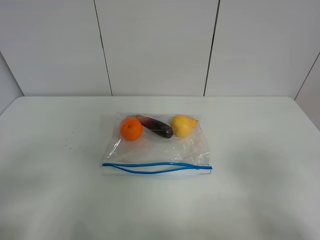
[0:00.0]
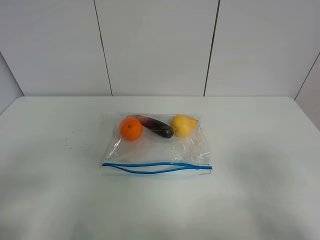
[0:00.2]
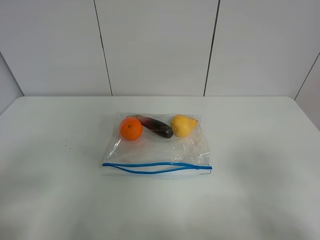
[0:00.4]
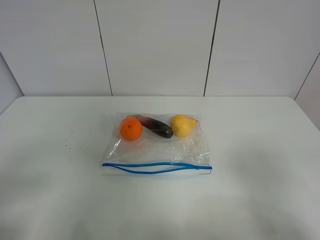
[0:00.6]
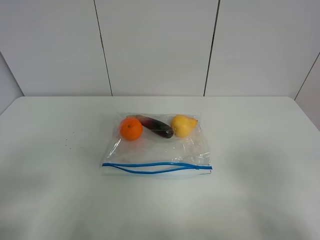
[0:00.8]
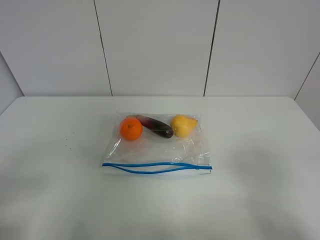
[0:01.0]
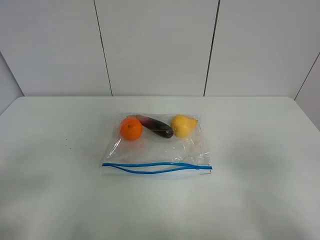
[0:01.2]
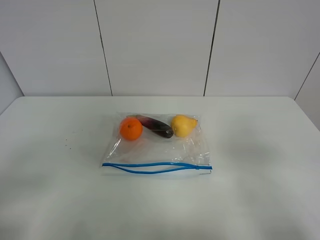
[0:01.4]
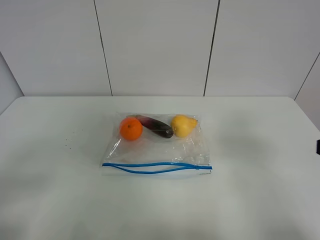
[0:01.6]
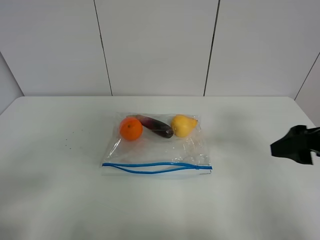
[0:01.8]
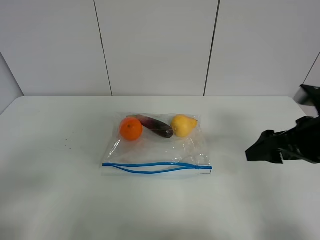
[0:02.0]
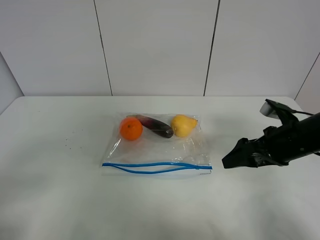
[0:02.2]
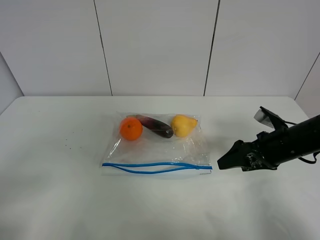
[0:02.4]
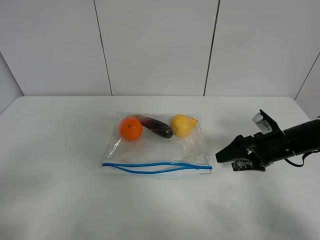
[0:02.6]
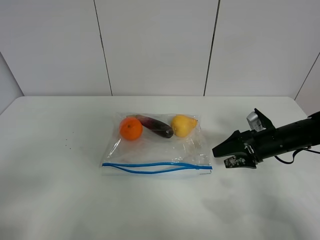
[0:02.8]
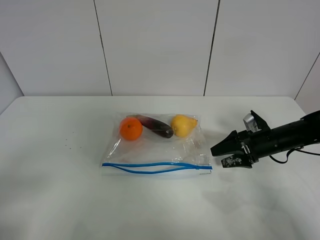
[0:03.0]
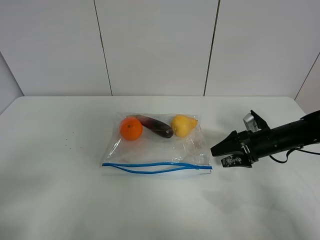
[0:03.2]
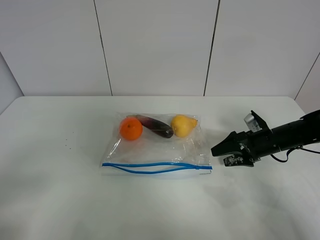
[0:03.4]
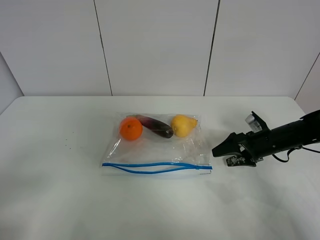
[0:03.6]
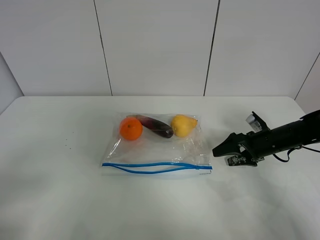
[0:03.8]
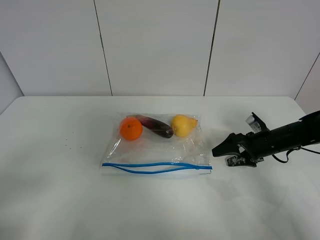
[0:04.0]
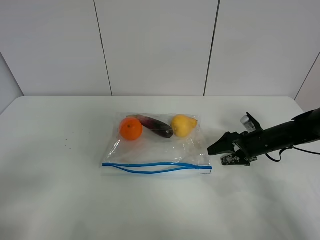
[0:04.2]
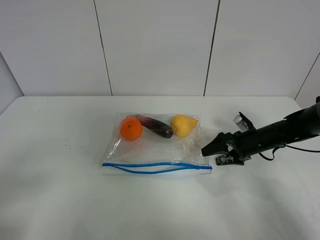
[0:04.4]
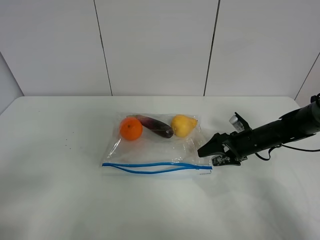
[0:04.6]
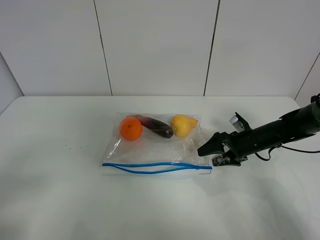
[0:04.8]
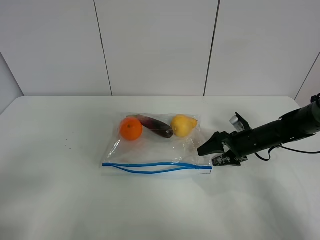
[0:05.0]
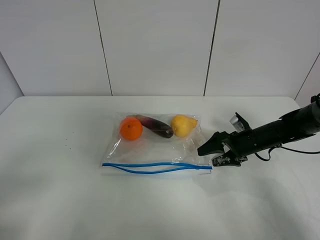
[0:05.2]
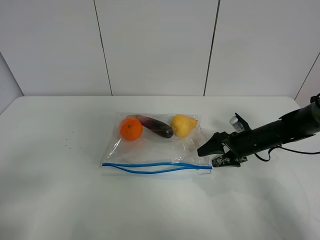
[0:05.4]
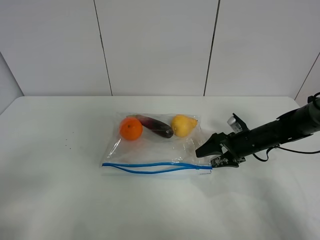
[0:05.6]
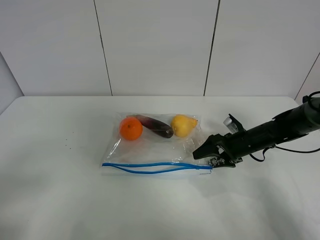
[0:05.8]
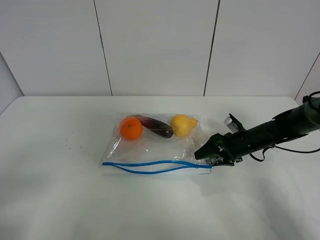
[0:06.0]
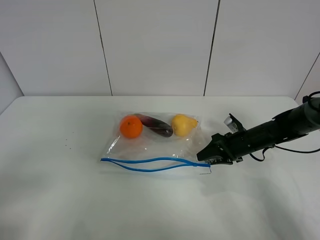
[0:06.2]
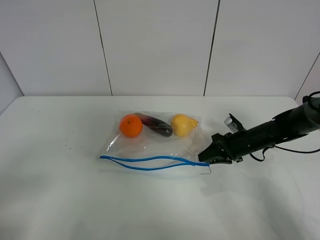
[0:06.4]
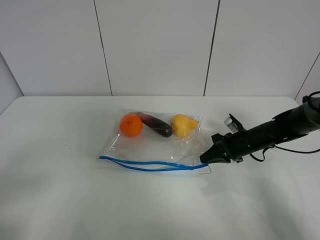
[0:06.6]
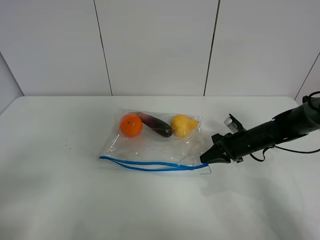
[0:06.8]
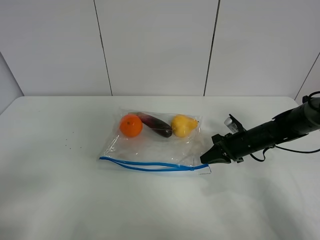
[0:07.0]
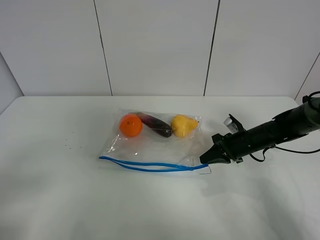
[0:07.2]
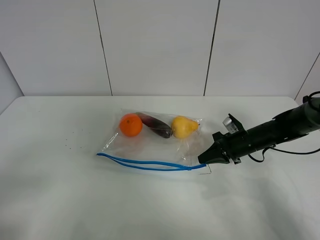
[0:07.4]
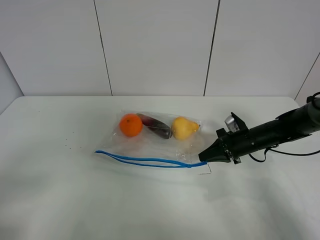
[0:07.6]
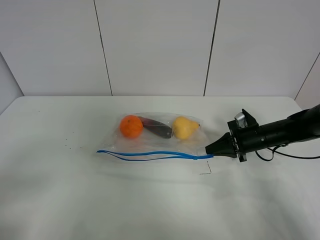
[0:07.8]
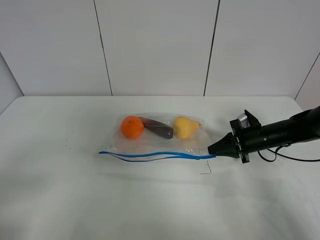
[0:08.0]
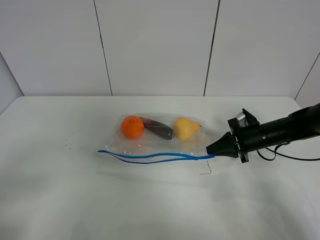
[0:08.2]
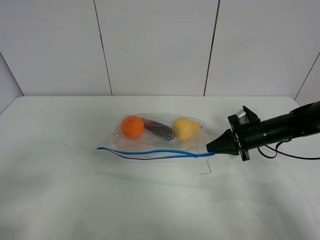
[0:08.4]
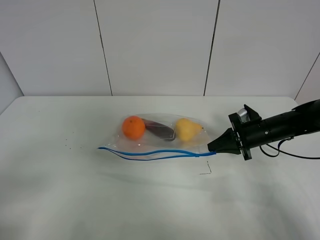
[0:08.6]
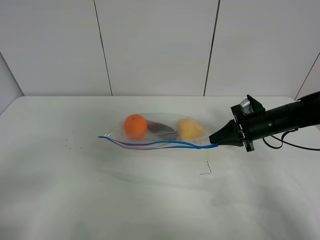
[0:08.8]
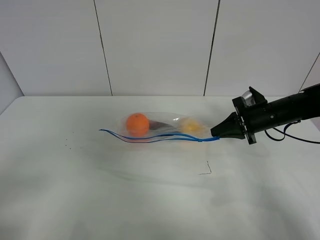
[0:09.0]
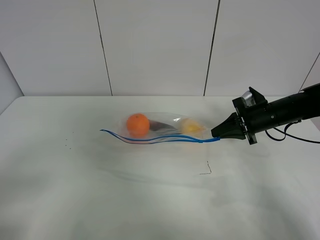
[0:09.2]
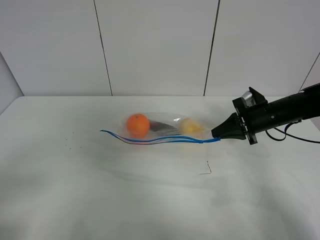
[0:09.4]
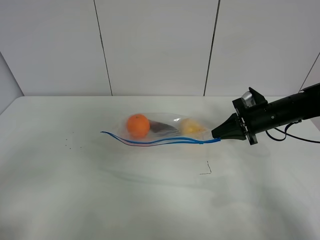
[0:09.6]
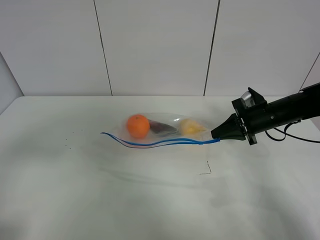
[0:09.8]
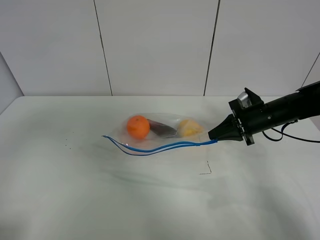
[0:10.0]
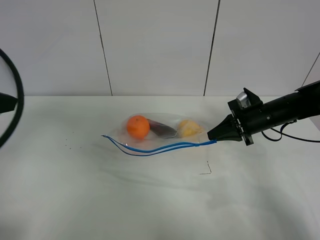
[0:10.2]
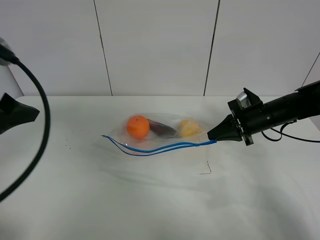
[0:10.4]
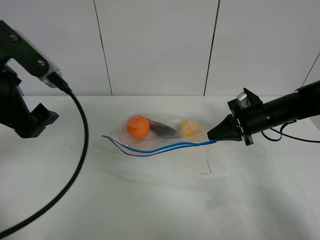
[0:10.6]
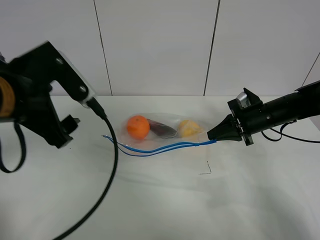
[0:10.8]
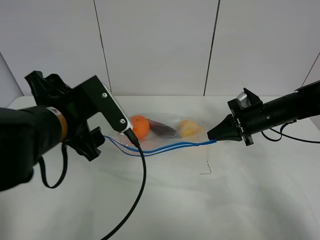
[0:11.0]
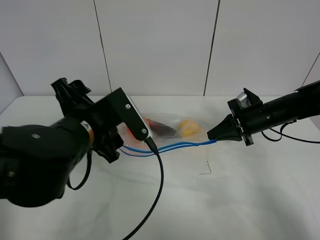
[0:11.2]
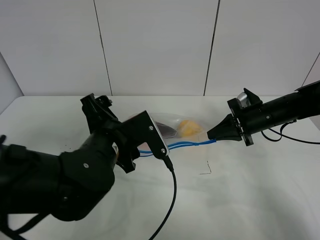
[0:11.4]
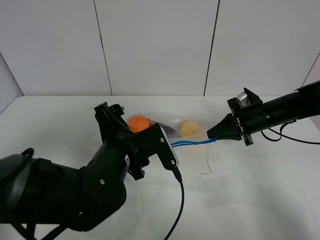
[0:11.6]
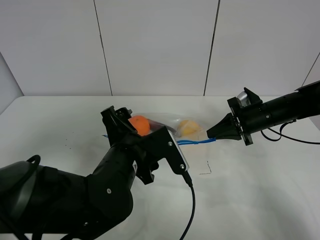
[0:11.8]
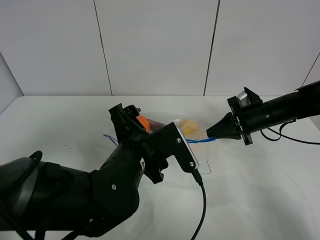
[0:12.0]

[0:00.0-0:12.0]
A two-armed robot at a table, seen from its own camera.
Step, 0:00.0 to 0:06.6: Grasp the fruit bag with right gripper.
Step, 0:06.8 to 0:09.4: Lift the fruit bag with your right gripper.
0:00.0 to 0:01.6: The right gripper heads forward, covering some 10 cm.
0:01.6 to 0:03.0: The right gripper travels forward and downward by roughly 30 cm.
0:03.0 to 0:06.0: The grippers move only a little.
0:06.0 to 0:07.6: The right gripper closes.
0:07.6 to 0:09.0: The right gripper heads upward, covering about 5 cm.
0:09.0 to 0:10.4: The left gripper travels forward and upward by approximately 20 cm.
0:10.4 to 0:12.0: The left gripper is displaced to the right and downward by about 30 cm.

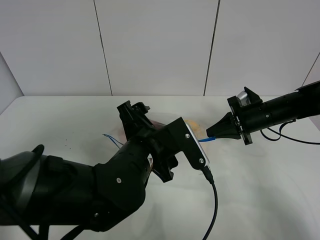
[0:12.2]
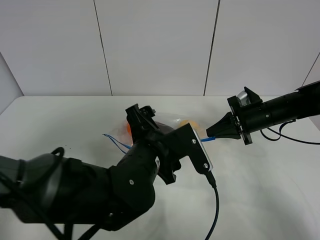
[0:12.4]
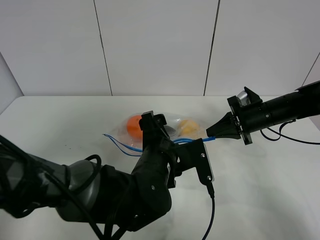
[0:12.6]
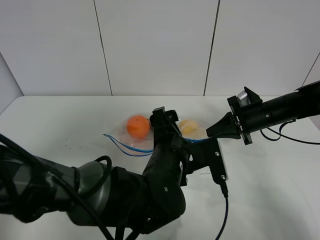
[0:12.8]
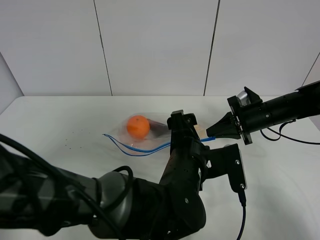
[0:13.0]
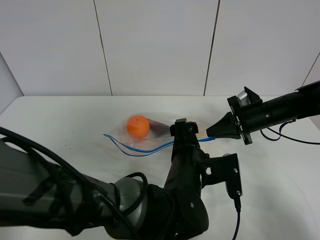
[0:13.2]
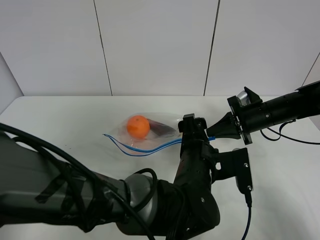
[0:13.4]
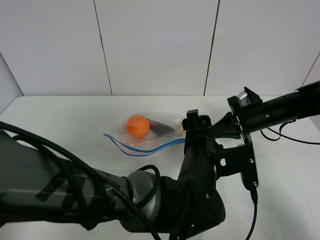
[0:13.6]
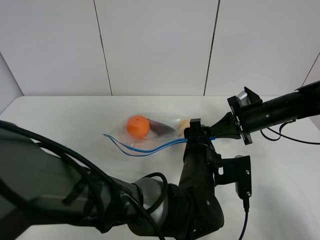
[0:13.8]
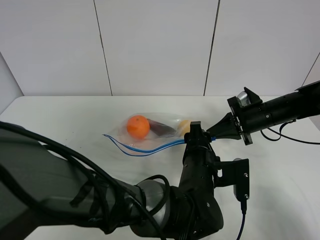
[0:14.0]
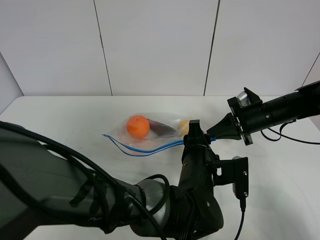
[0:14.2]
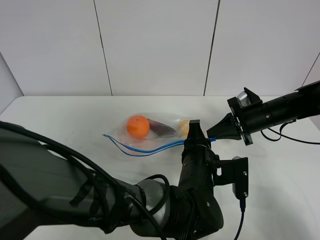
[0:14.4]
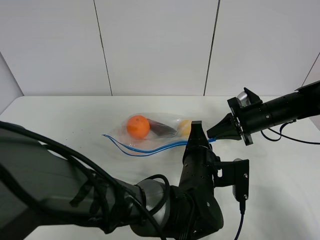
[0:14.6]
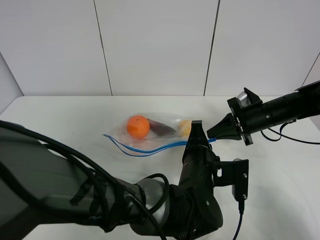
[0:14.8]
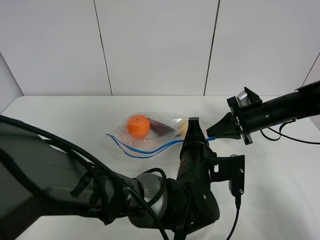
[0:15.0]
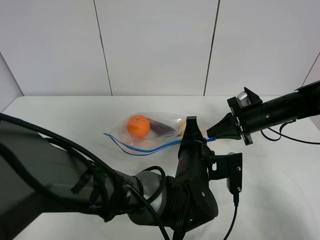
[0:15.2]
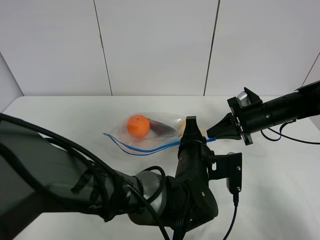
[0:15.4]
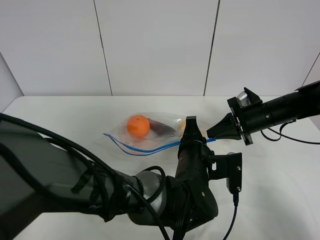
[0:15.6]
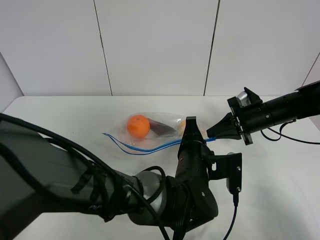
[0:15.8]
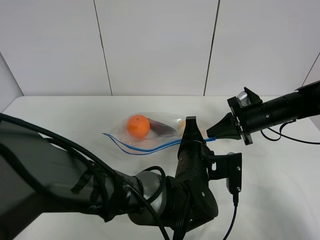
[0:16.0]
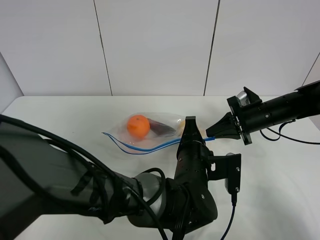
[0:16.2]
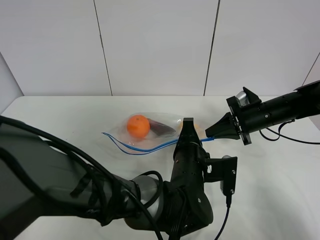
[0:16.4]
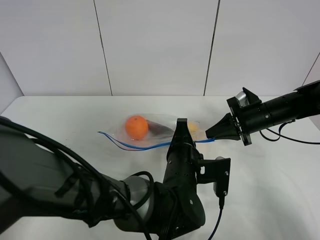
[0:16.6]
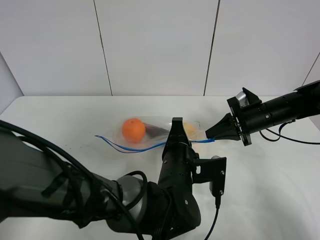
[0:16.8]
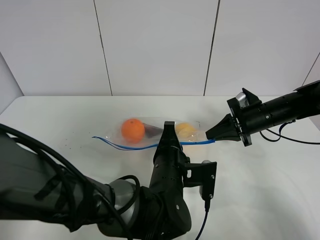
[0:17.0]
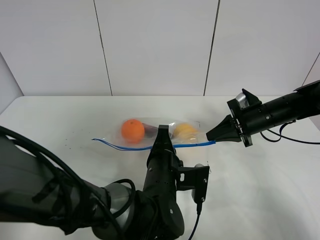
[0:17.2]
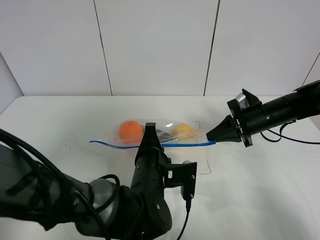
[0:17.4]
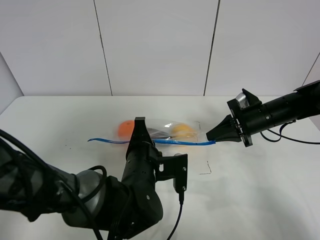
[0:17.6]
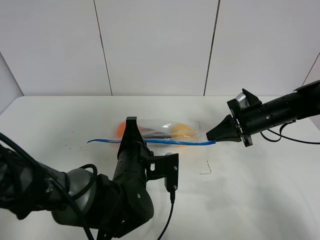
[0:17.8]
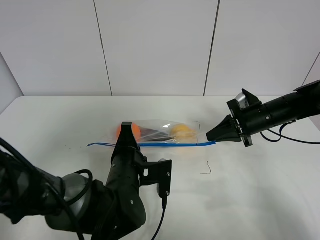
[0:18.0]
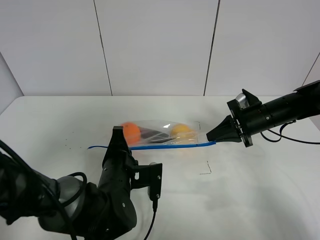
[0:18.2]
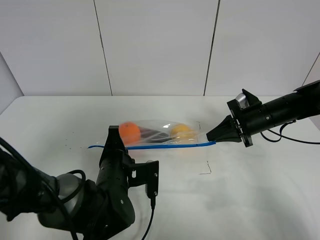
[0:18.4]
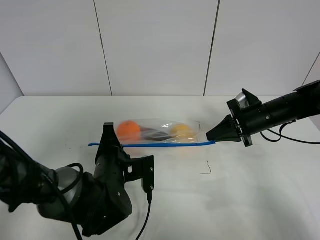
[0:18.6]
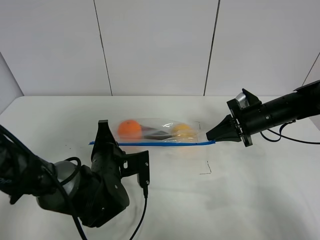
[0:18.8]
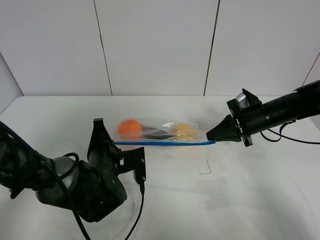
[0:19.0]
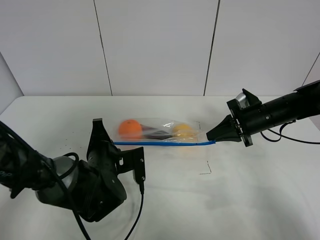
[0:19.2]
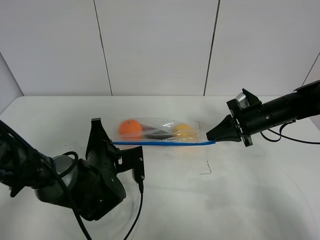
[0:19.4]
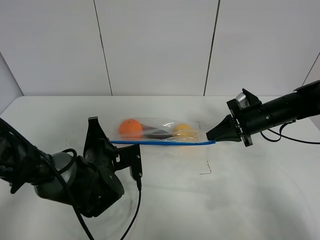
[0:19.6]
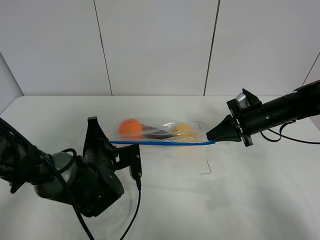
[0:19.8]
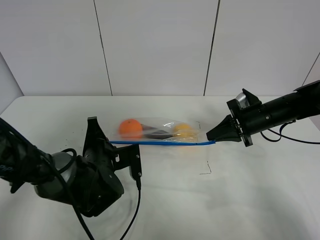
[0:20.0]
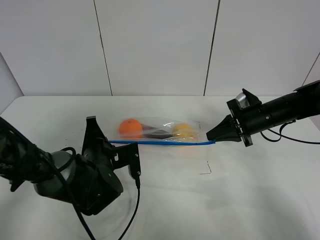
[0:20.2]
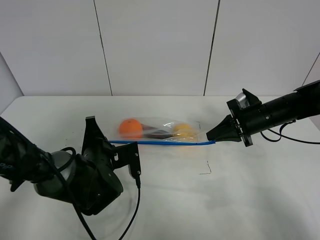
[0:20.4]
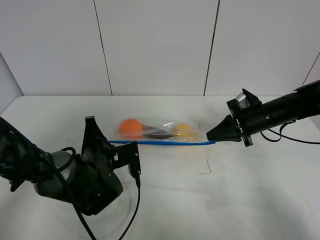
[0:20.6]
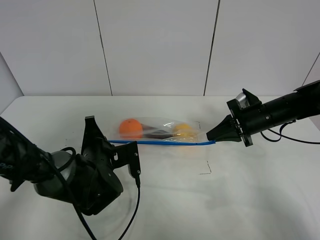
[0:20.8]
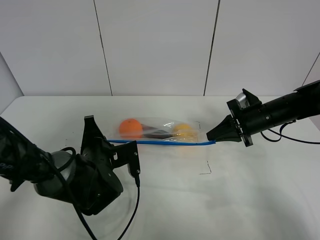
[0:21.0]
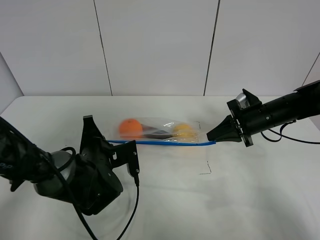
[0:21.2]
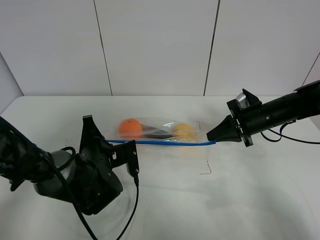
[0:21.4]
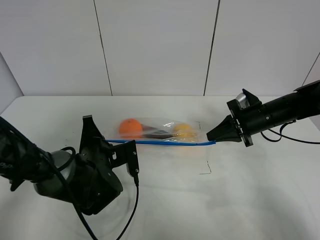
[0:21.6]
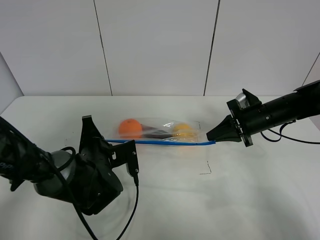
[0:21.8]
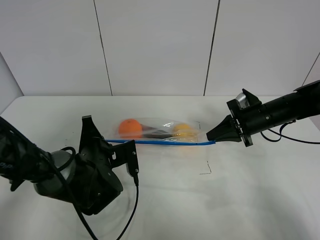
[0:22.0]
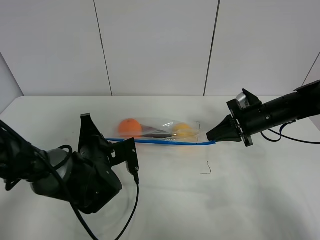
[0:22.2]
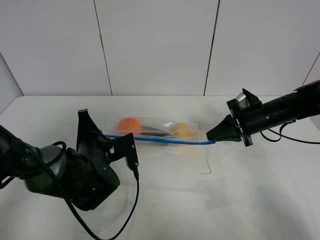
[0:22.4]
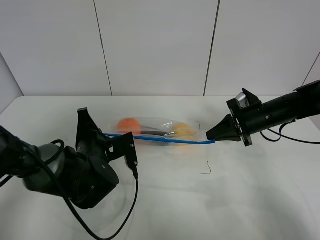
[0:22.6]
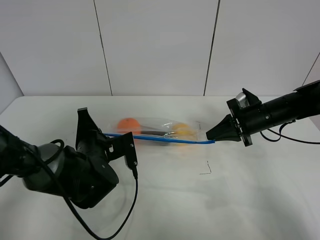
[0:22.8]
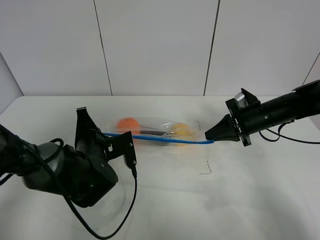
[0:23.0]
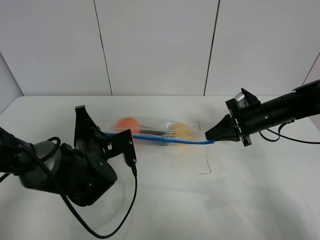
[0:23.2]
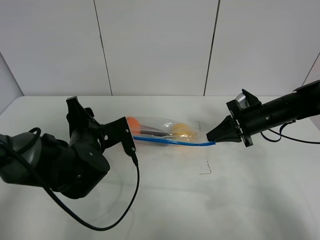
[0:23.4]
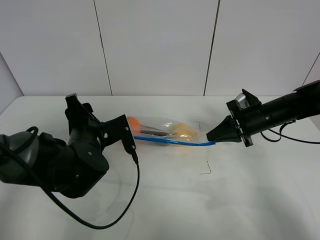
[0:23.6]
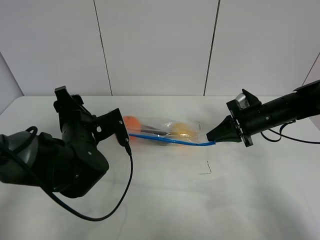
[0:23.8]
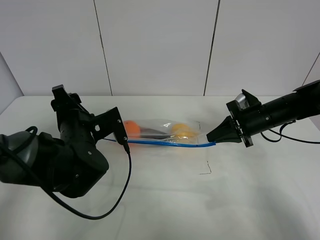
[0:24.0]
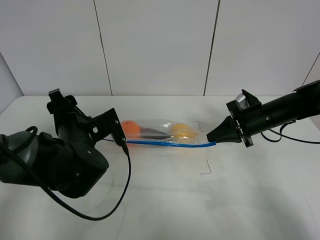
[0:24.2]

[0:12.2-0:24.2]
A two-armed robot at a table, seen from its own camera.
Step, 0:12.2 to 0:23.8: Pull the fruit bag with left gripper.
0:12.2 to 0:13.8: The left gripper heads to the right and downward, covering approximately 10 cm.
0:13.8 to 0:15.2: The left gripper closes up.
0:15.2 to 0:16.6: There are only small adjustments of the grippers.
0:16.6 to 0:18.2: The left gripper is displaced to the left by roughly 10 cm.
0:18.2 to 0:19.8: The left gripper shifts by roughly 5 cm.
0:19.8 to 0:21.2: Neither gripper changes place.
0:21.2 to 0:22.6: The grippers make only small movements.
0:22.6 to 0:24.2: The left gripper opens up.
